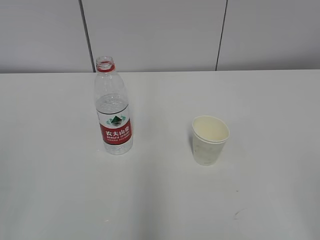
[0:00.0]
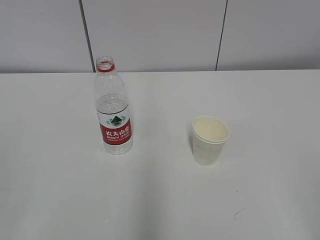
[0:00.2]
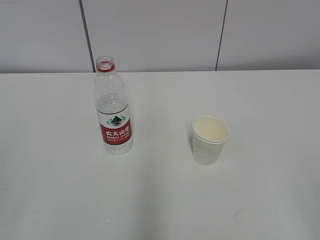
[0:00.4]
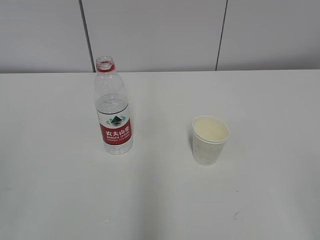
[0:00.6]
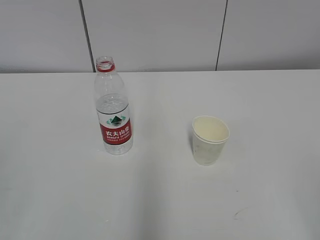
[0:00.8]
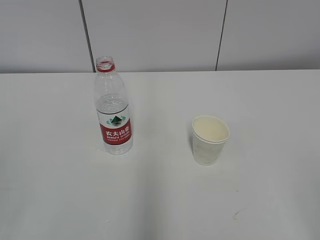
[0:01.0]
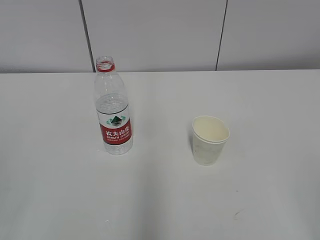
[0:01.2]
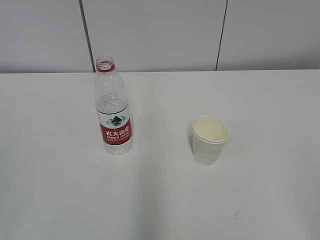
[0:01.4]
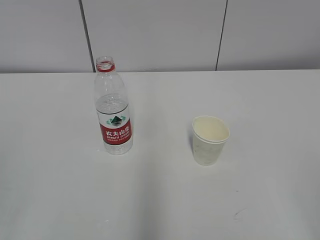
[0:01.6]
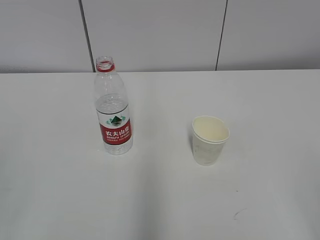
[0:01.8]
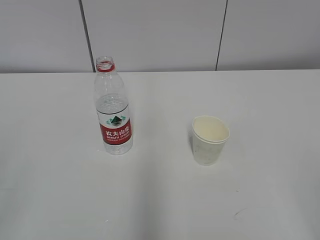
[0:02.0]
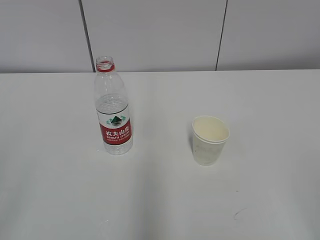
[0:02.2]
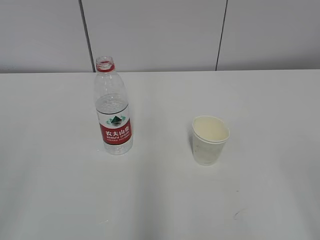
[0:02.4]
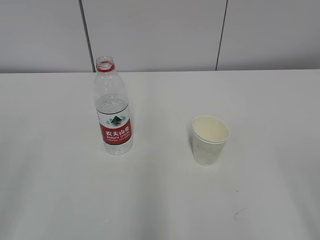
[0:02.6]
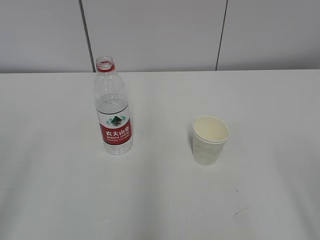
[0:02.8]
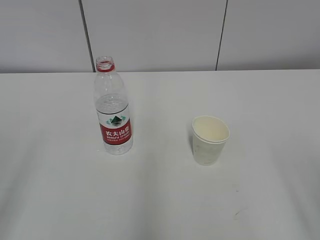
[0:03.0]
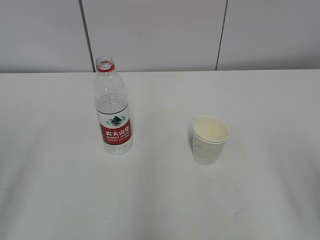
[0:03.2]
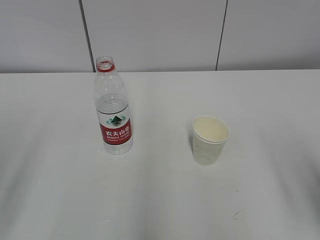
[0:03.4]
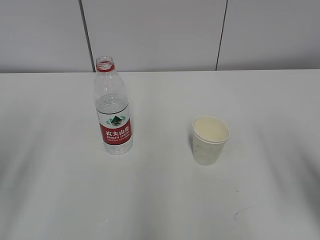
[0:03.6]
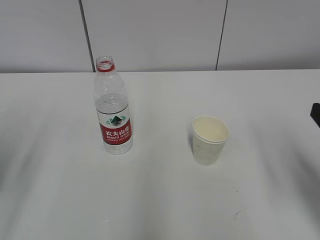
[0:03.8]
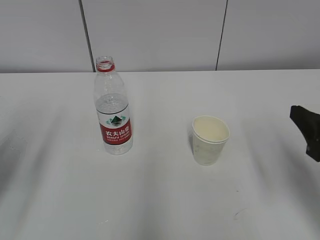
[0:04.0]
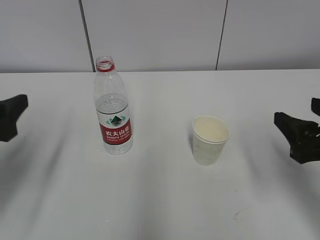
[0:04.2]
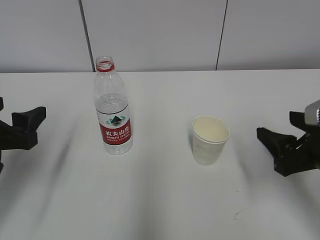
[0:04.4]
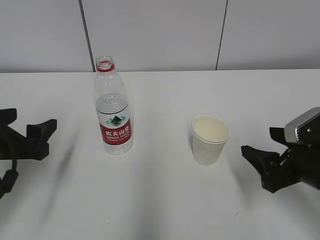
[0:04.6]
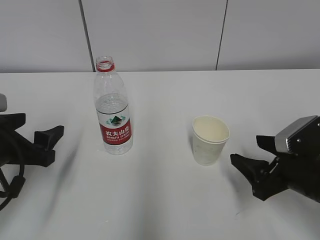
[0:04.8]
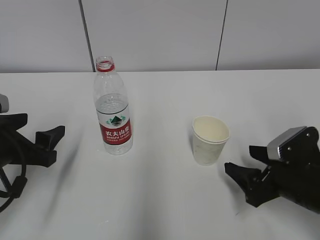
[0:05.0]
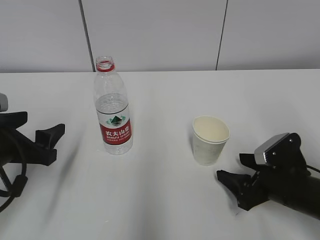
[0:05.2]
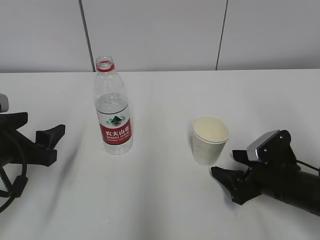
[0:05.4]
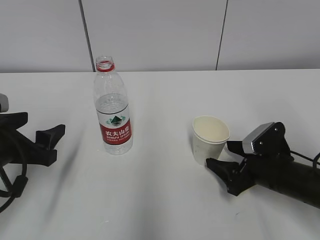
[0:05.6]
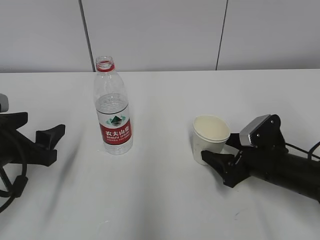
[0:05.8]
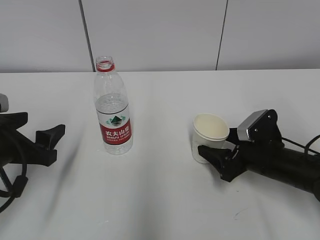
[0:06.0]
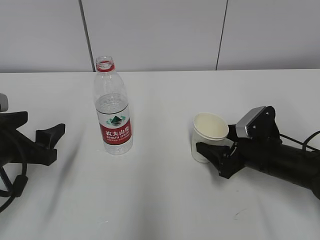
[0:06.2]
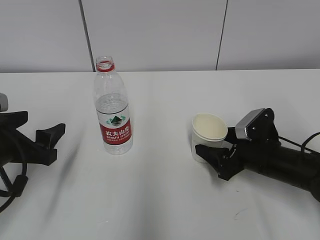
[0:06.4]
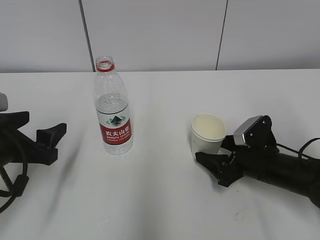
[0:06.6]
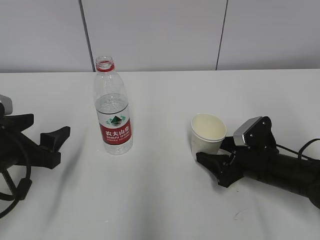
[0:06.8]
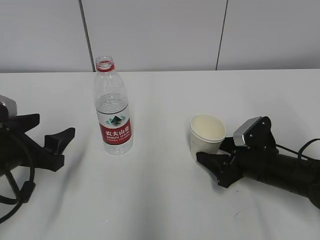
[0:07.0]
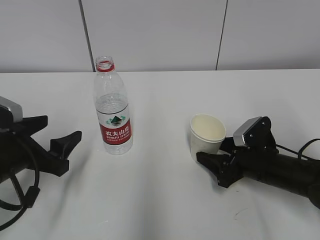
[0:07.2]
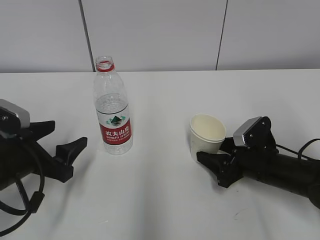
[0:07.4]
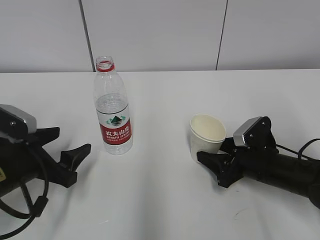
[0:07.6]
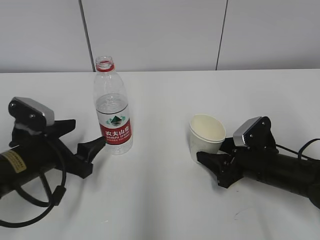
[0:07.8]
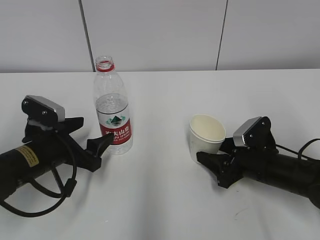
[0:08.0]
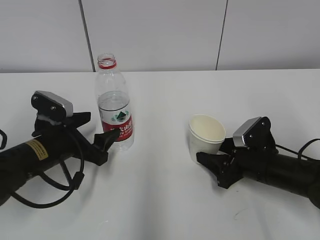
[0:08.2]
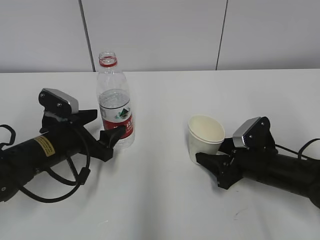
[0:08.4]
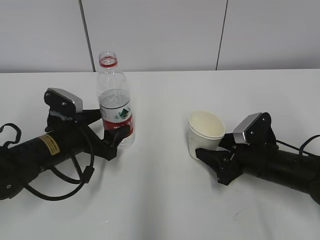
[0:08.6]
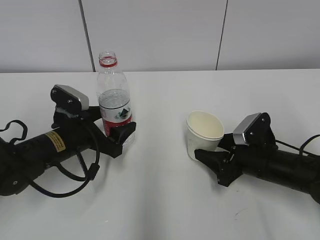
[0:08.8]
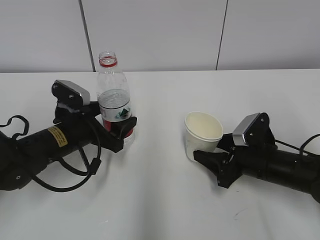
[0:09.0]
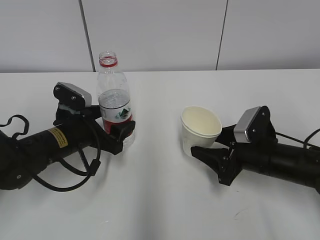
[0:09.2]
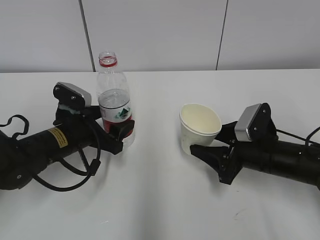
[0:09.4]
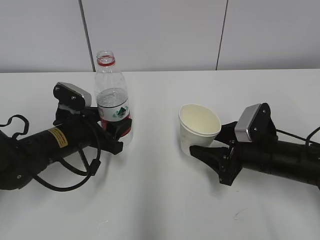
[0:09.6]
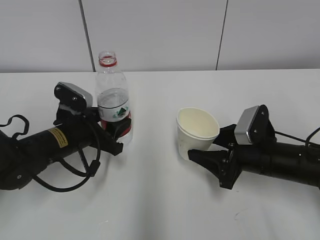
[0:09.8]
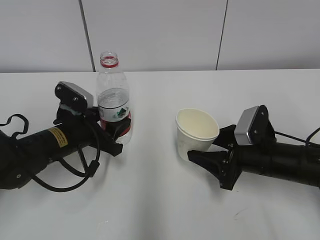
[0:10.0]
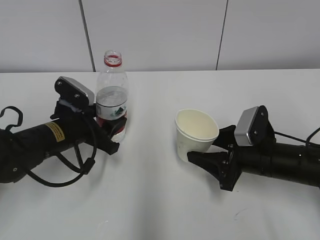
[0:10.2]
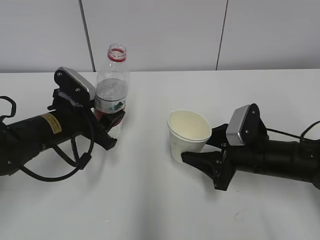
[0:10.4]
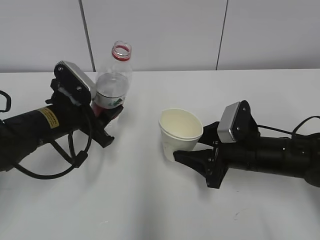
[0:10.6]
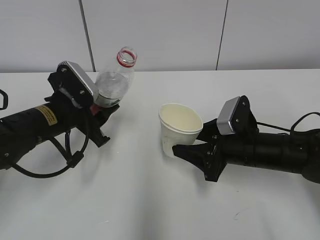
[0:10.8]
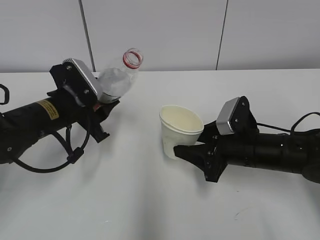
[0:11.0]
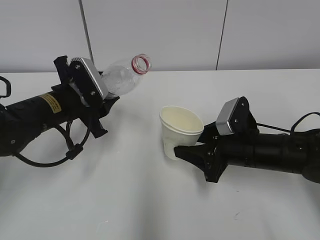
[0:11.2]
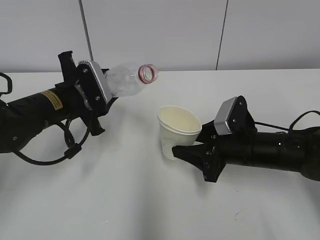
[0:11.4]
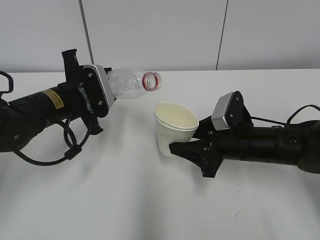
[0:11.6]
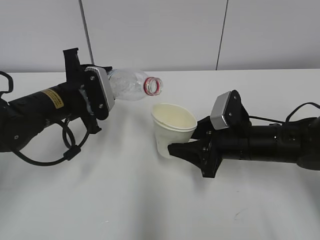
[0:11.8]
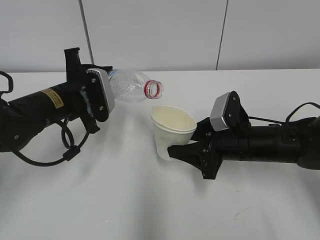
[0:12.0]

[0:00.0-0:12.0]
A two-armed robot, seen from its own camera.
Step, 0:00.0 to 0:06.6: Grab the paper cup with the right hand.
Step, 0:06.8 to 0:08.2: Grab the water bottle with the left hand.
Step, 0:08.4 to 0:11.2: Lift the paper cup with the right hand.
0:03.0 to 0:04.4: Both grippers travel together forward and downward, approximately 20 cm.
0:04.4 to 0:06.0: The right gripper moves downward and forward, roughly 15 cm.
0:06.0 to 0:07.6: The right gripper closes its fingers.
0:07.6 to 0:09.0: The left gripper goes about 10 cm forward and to the right.
0:09.0 to 0:10.4: The left gripper closes.

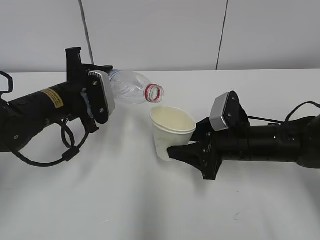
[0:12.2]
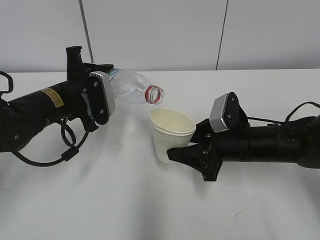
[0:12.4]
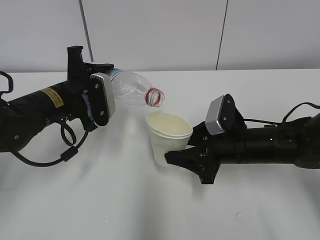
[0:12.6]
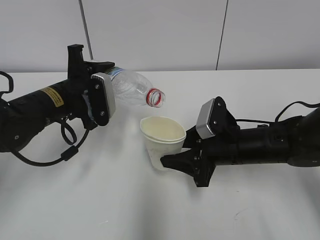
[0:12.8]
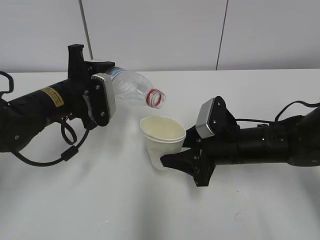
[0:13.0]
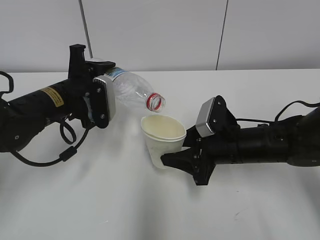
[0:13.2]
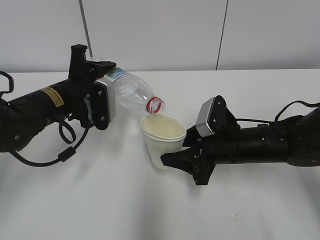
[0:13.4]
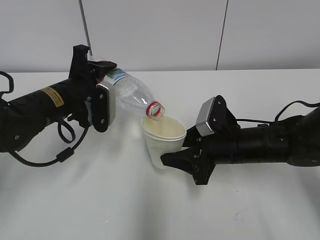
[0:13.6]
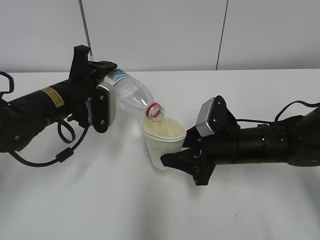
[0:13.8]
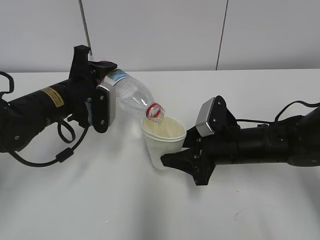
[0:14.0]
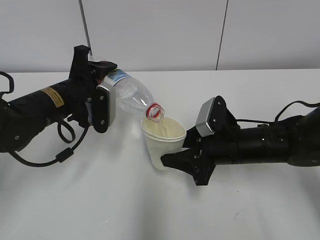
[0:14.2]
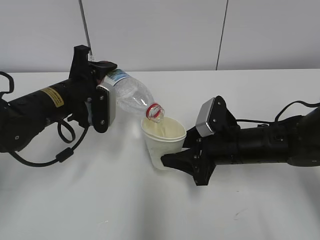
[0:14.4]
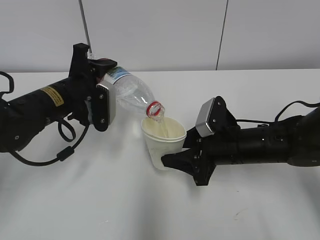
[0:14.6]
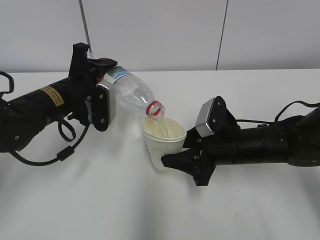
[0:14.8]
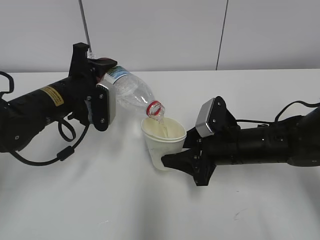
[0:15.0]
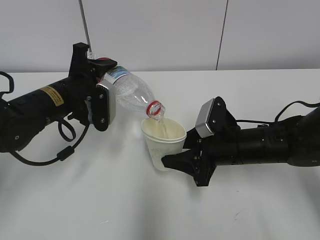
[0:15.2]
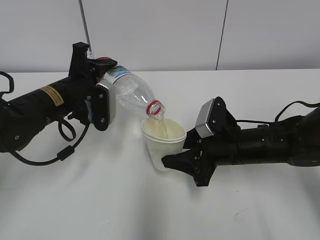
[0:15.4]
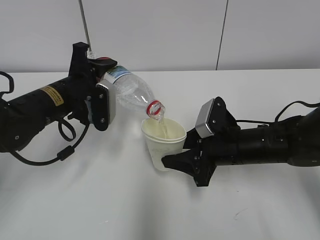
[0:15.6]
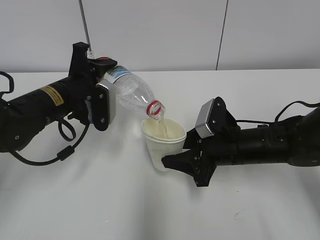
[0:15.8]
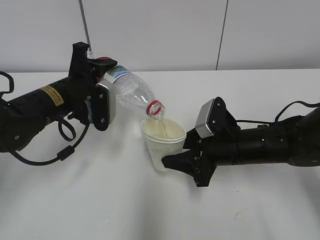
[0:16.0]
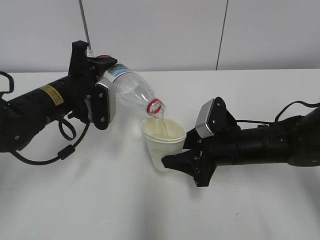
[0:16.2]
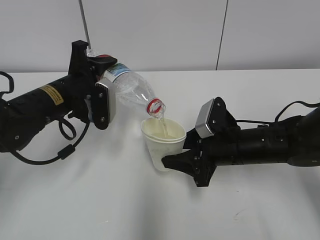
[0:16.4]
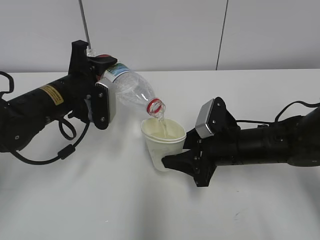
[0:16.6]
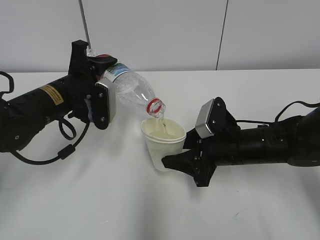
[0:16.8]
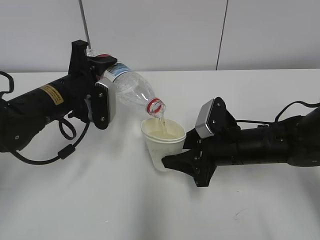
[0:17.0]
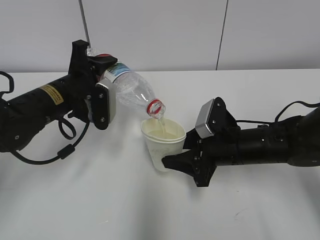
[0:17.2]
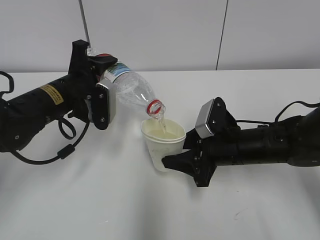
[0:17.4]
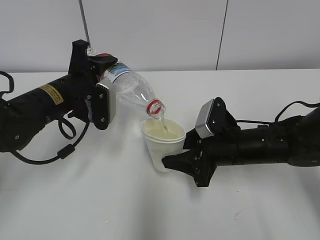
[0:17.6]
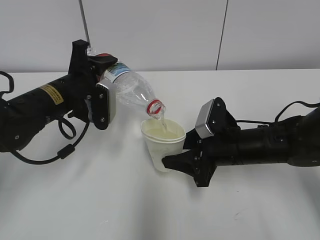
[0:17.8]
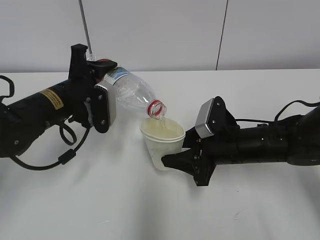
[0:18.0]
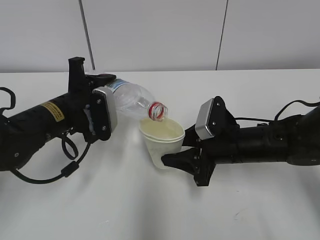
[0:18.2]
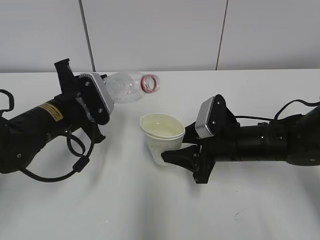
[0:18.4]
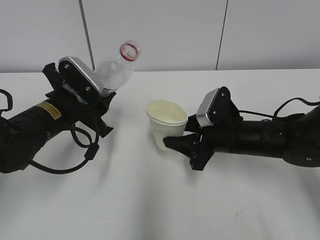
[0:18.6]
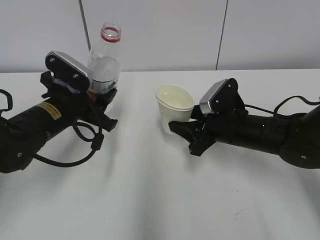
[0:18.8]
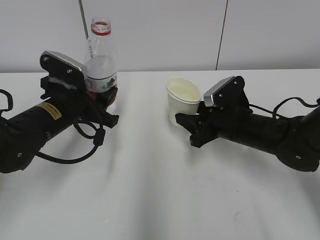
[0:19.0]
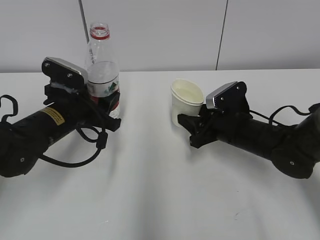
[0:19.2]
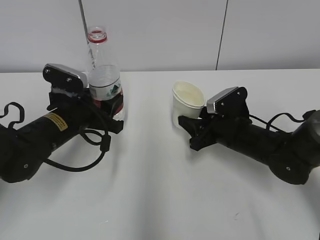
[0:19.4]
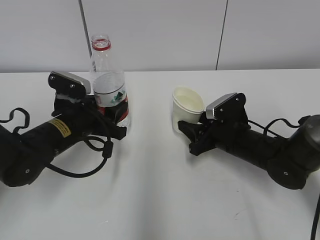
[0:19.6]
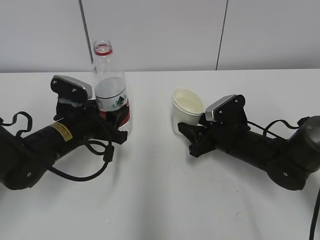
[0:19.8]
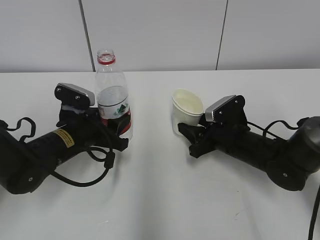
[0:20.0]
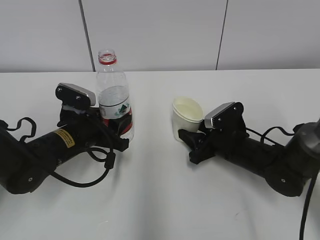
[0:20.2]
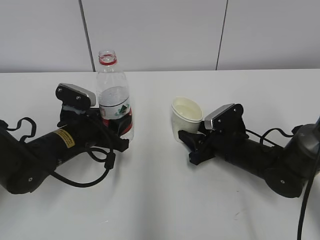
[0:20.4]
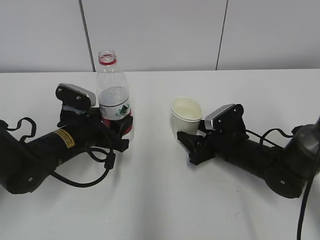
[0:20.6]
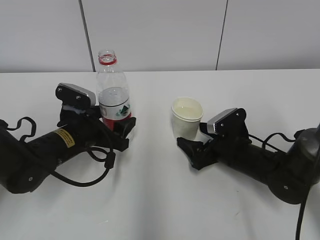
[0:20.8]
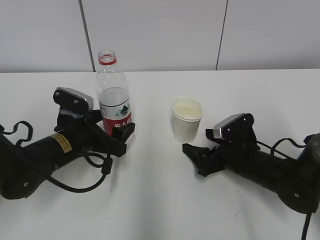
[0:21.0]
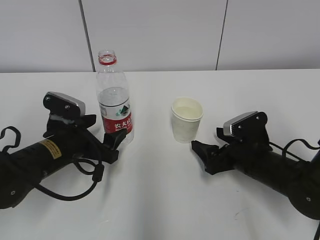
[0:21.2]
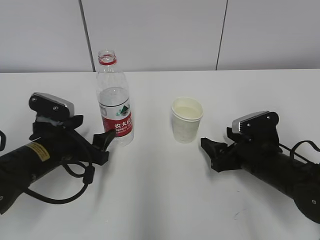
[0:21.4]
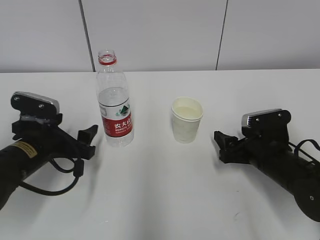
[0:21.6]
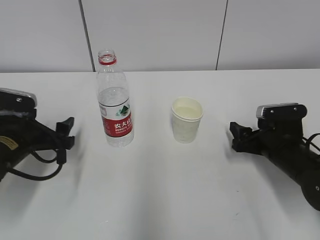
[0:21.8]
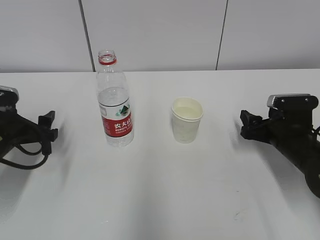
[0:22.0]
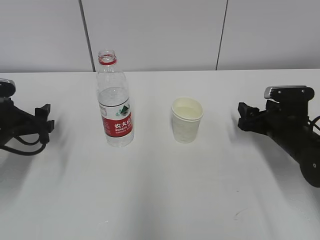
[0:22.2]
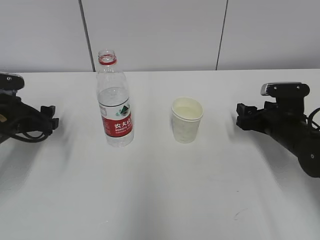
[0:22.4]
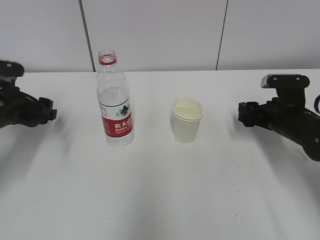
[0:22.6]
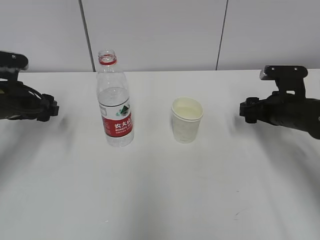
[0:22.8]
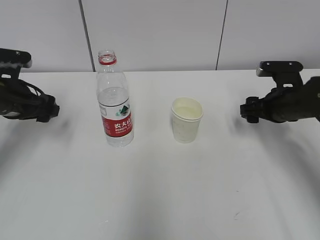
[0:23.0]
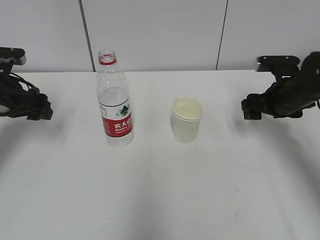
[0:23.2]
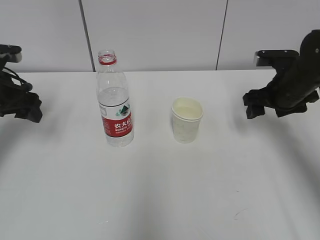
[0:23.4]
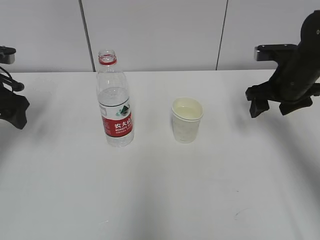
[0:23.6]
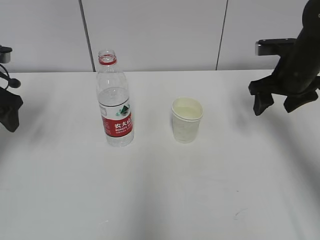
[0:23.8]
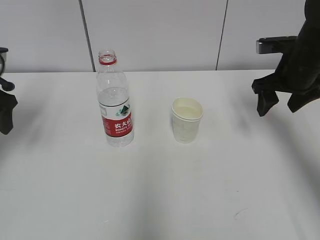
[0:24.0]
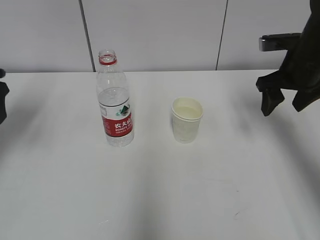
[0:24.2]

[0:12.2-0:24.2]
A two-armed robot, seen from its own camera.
Step, 0:12.2 to 0:15.0: Fill water with the right hand.
Step, 0:12.2 to 0:15.0: Pour water with the left hand.
Step, 0:16.0 to 0:17.2: Place the water bottle with the left hand.
0:12.2 to 0:13.8: There are only small adjustments of the grippers.
0:13.8 to 0:16.6: Neither gripper changes place.
0:16.6 to 0:18.2: The grippers move only a little.
0:18.2 to 0:19.8: The right gripper moves approximately 5 cm.
0:19.8 to 0:21.2: The right gripper moves approximately 5 cm, and opens; the left gripper opens.
0:21.2 to 0:22.6: The left gripper shifts some 10 cm to the left and forward. The right gripper moves to the right and forward, roughly 10 cm.
0:22.6 to 0:24.2: Both grippers move upward, approximately 15 cm.
